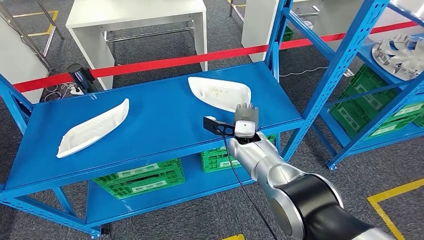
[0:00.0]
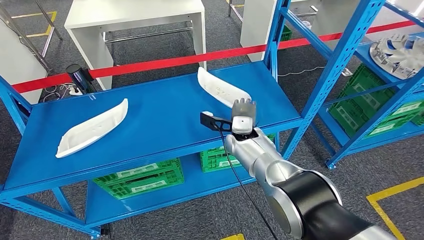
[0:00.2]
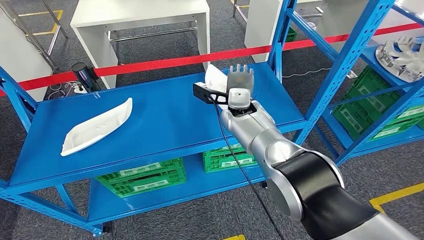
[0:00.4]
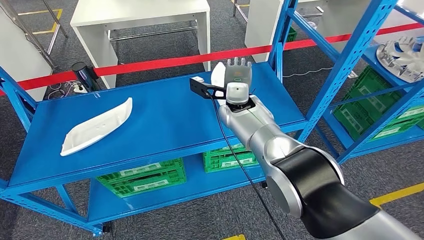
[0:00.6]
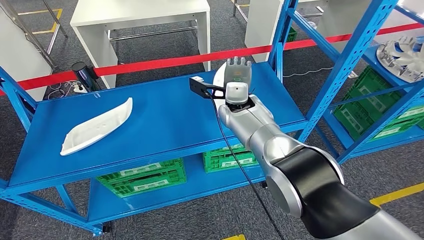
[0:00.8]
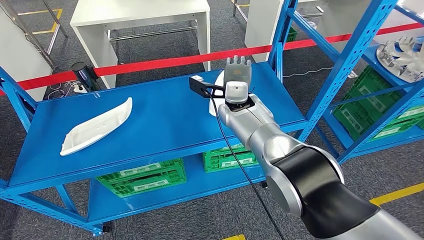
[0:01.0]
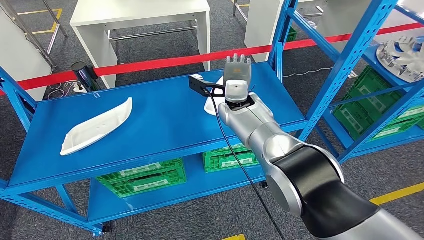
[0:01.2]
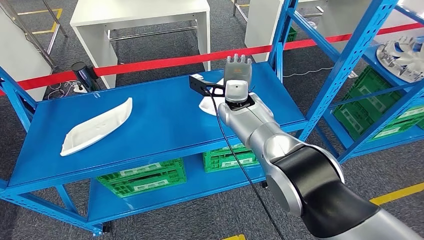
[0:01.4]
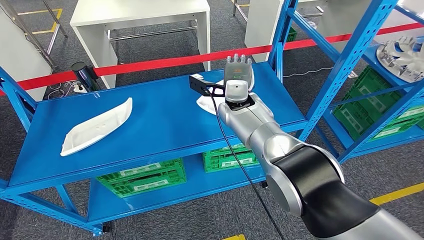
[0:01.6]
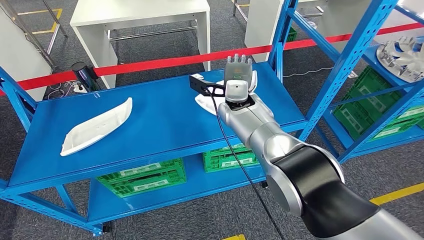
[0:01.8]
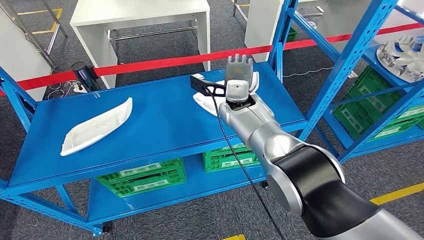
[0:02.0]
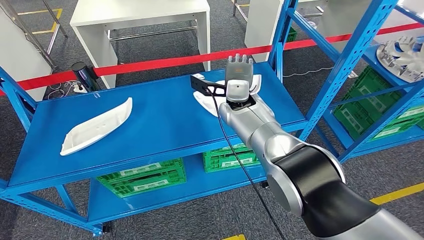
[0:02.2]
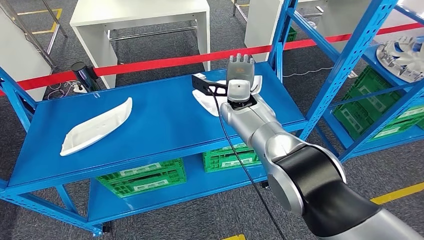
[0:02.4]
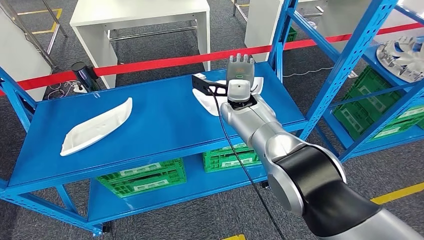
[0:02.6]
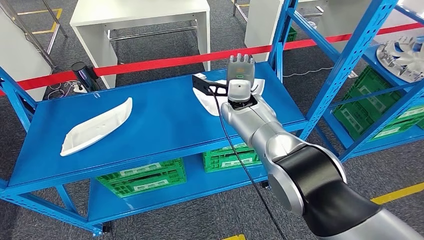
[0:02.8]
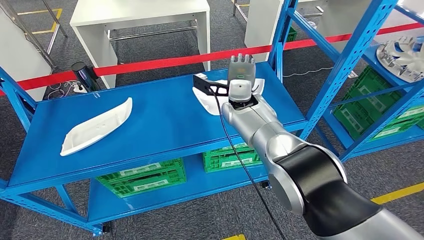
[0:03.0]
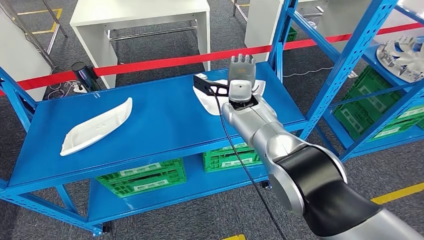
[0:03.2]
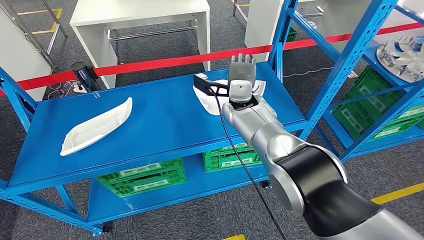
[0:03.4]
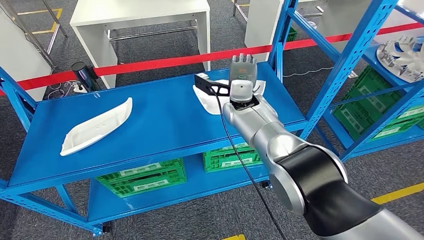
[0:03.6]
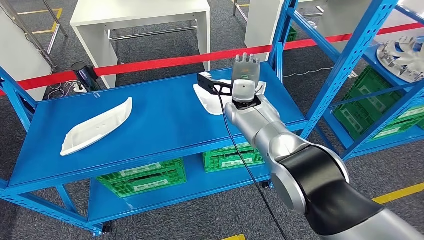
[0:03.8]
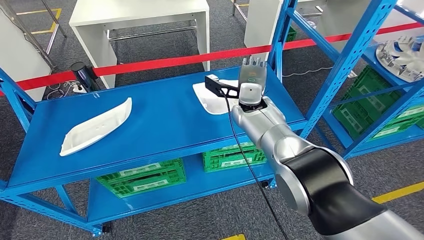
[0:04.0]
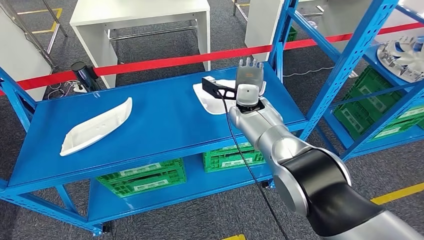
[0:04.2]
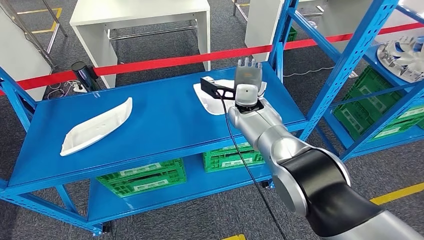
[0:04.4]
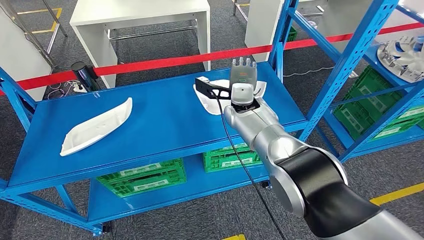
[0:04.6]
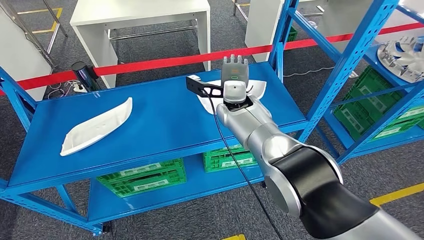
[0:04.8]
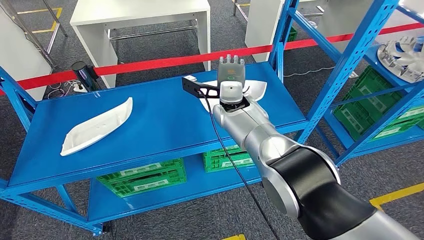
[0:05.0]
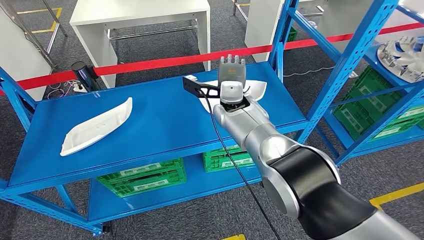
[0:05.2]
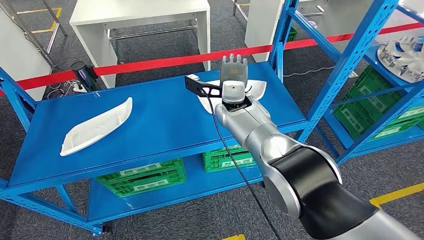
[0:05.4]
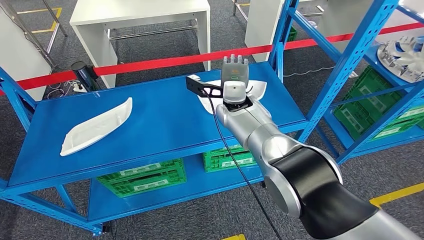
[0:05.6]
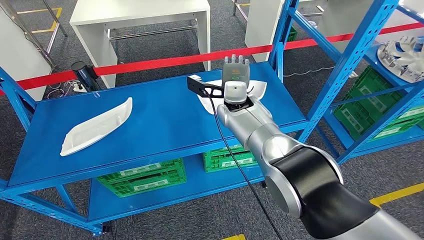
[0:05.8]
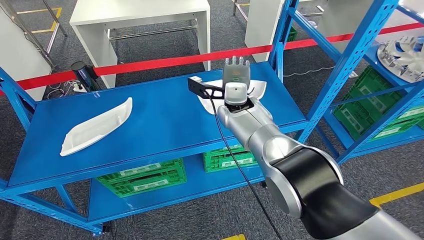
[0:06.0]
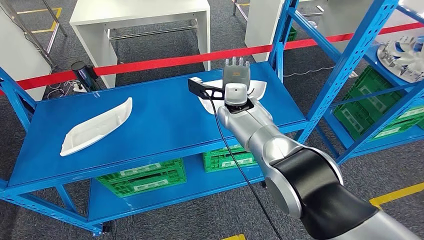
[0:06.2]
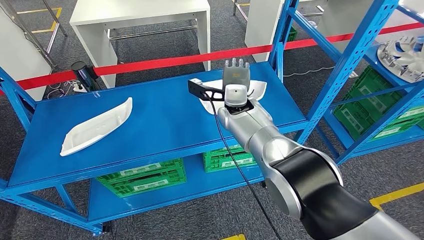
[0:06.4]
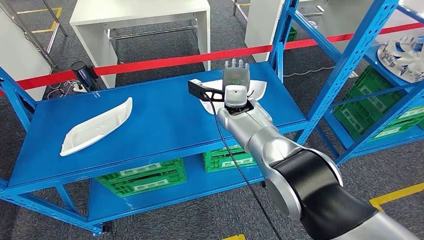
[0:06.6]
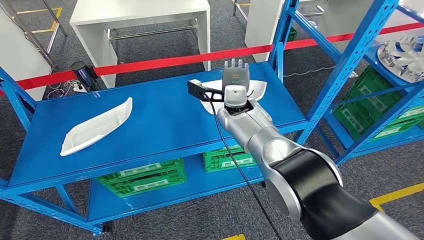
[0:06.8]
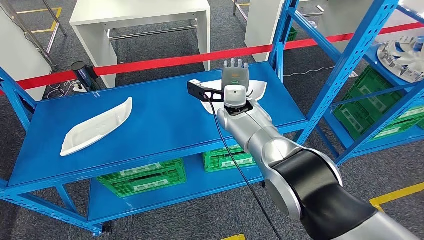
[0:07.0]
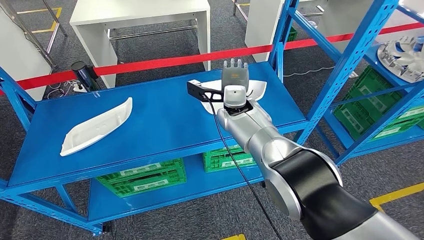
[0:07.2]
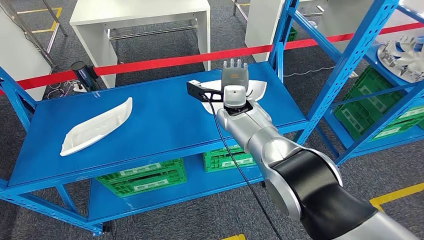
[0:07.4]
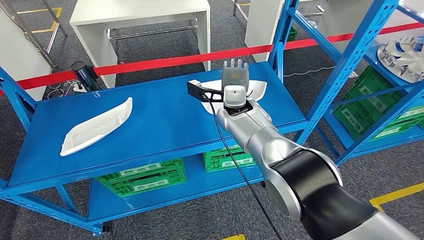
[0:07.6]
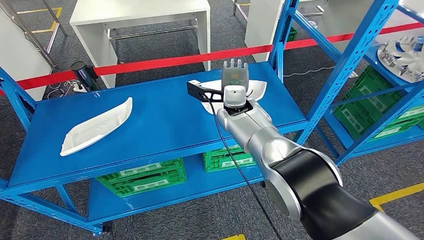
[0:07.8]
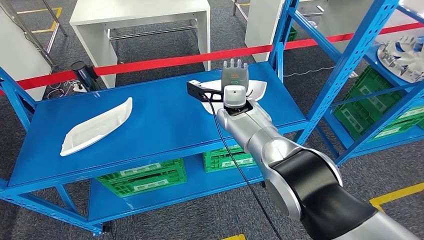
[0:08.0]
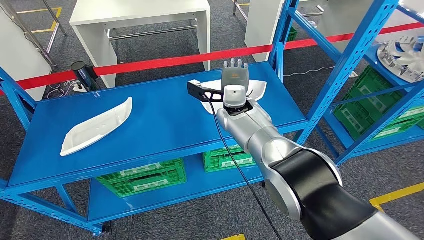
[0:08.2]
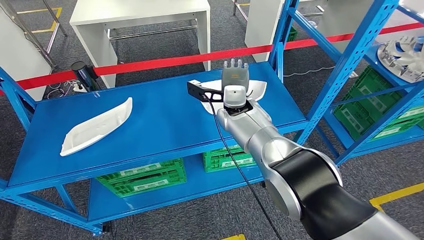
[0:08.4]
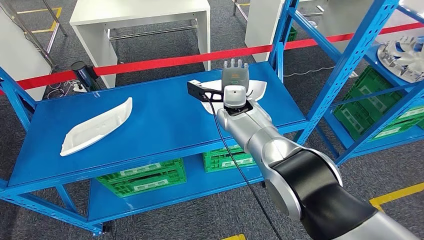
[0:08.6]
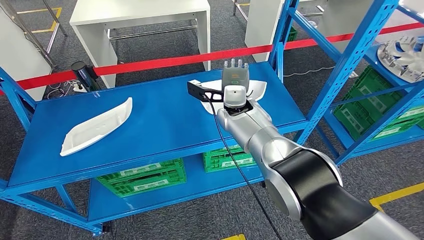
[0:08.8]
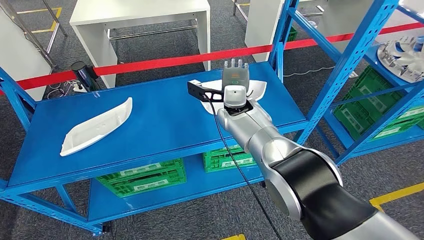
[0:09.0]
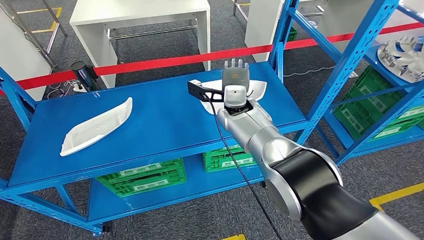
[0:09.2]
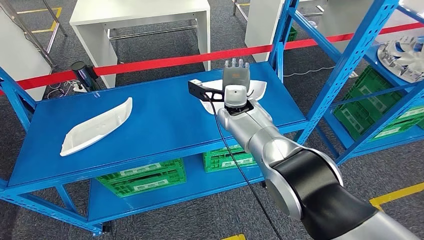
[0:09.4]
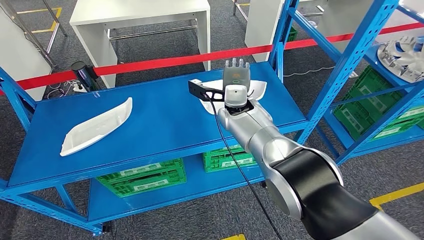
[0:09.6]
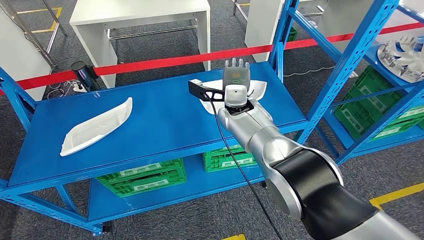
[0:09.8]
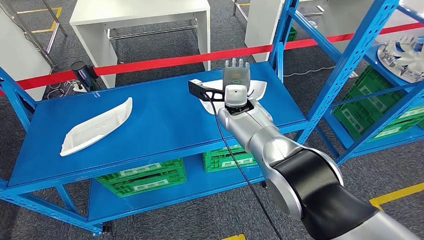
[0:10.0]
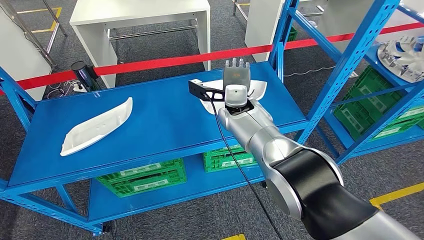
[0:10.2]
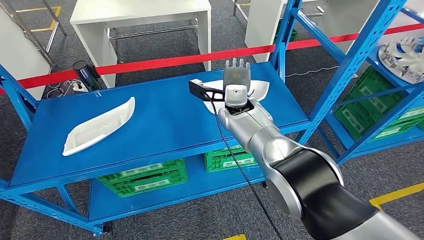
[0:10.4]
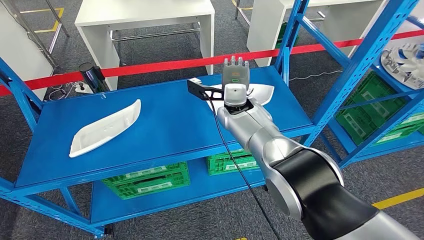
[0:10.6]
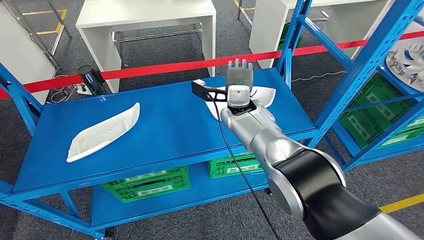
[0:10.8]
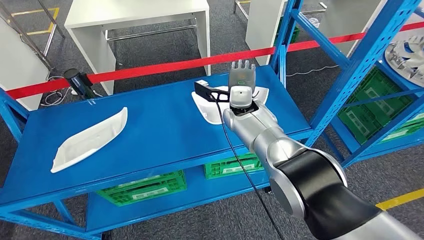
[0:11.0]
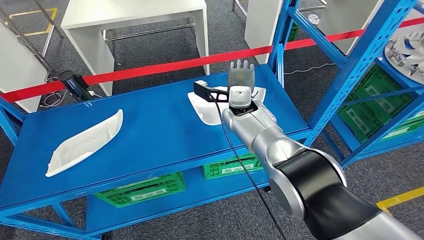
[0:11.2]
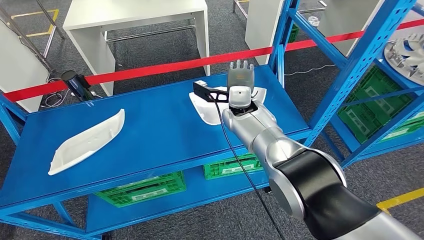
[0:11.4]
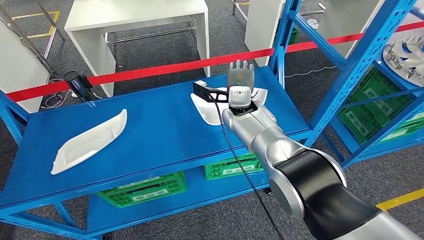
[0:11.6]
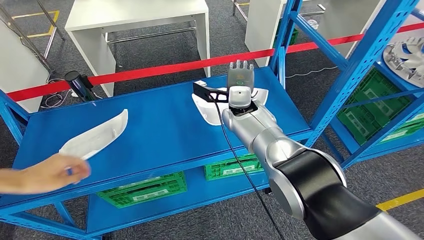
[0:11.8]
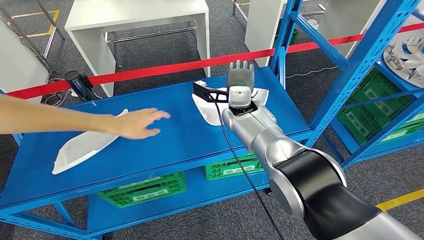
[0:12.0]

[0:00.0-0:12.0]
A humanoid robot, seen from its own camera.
0:01.6 to 0:03.0: Both hands stay put.
0:03.0 to 0:06.0: The hands stay close to where they were, moving slightly.
0:06.0 to 0:10.4: Both hands stay put.

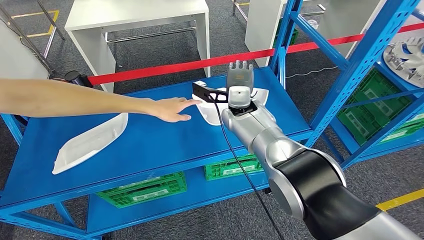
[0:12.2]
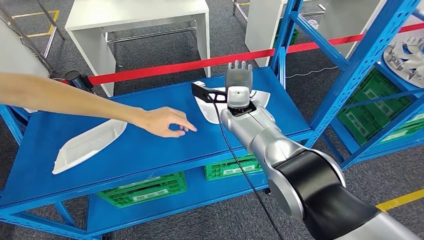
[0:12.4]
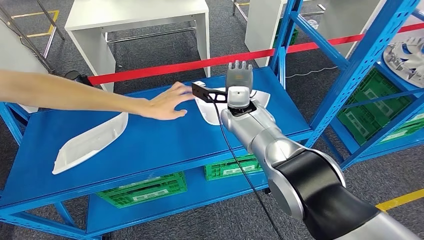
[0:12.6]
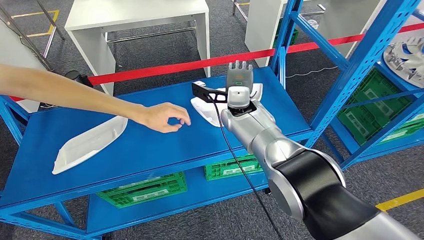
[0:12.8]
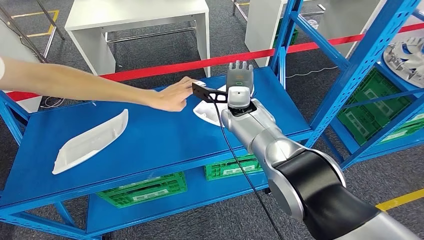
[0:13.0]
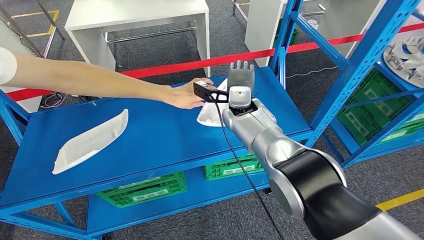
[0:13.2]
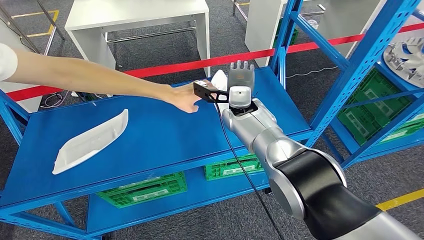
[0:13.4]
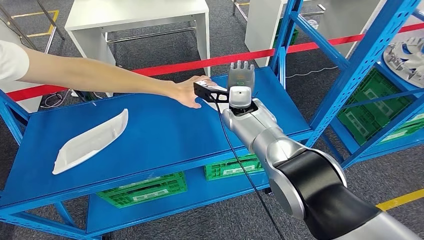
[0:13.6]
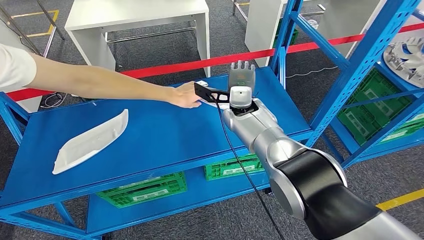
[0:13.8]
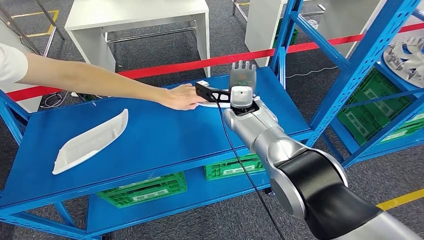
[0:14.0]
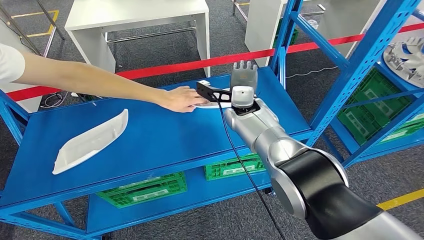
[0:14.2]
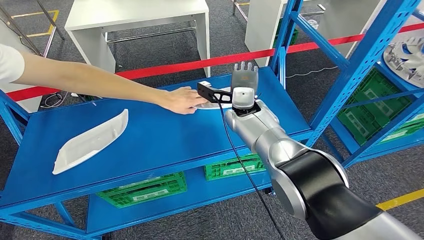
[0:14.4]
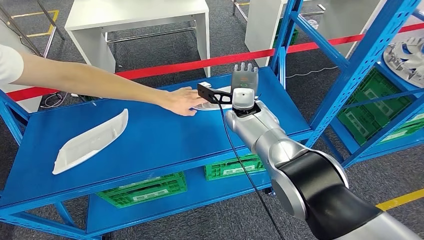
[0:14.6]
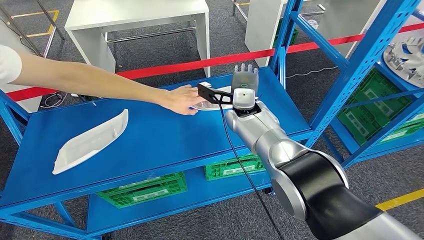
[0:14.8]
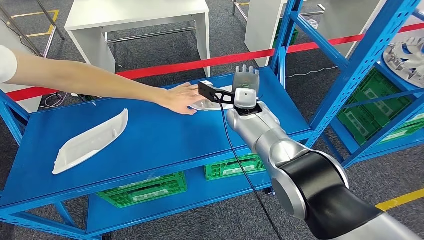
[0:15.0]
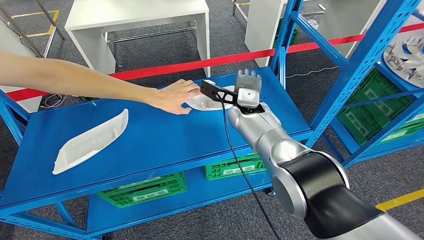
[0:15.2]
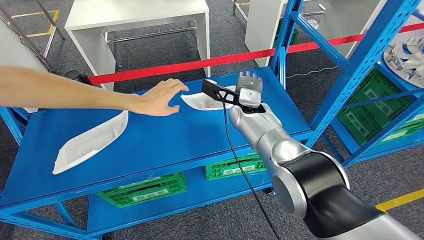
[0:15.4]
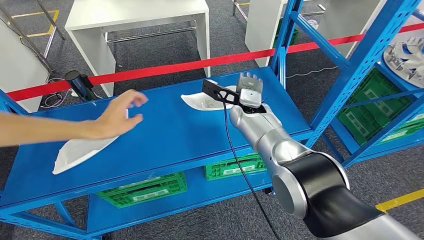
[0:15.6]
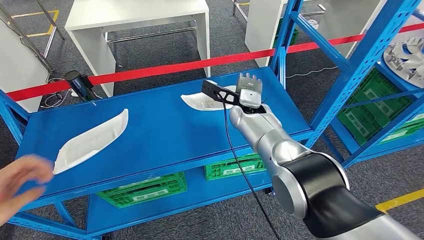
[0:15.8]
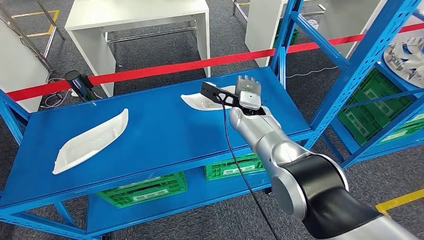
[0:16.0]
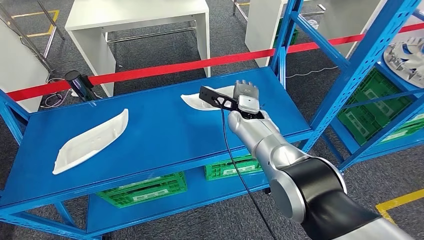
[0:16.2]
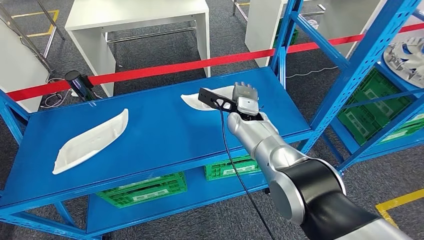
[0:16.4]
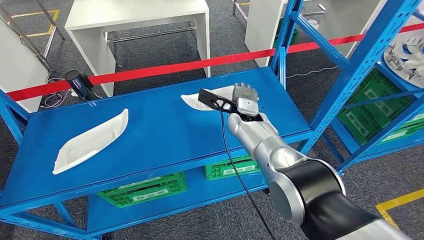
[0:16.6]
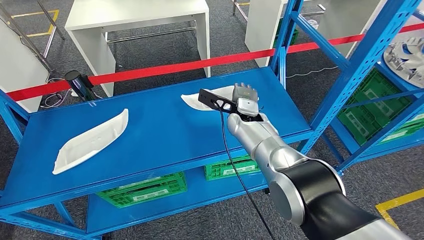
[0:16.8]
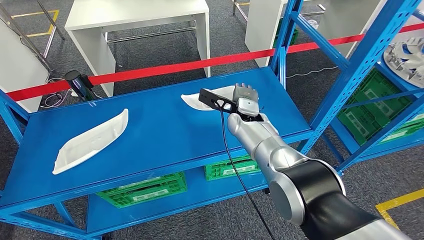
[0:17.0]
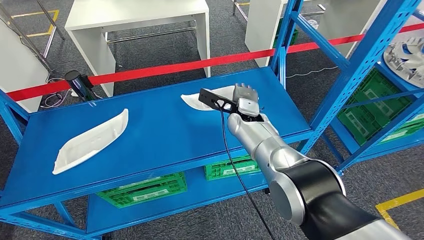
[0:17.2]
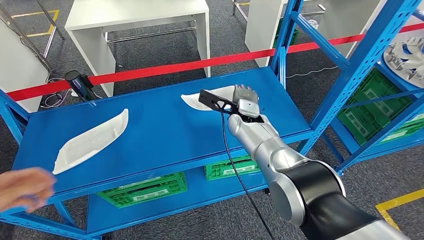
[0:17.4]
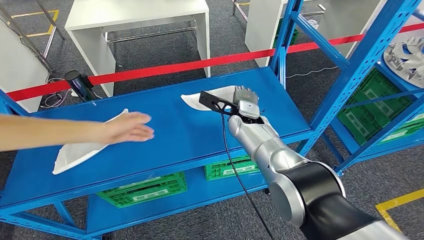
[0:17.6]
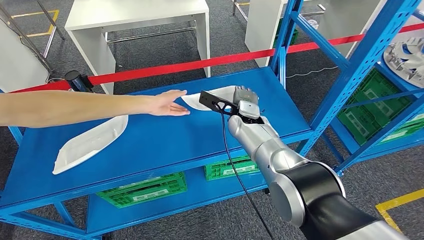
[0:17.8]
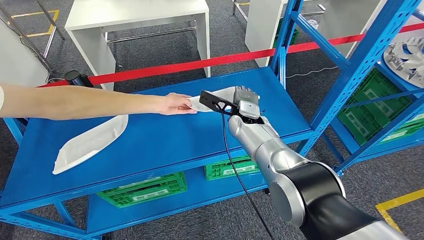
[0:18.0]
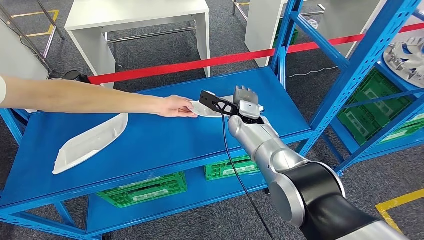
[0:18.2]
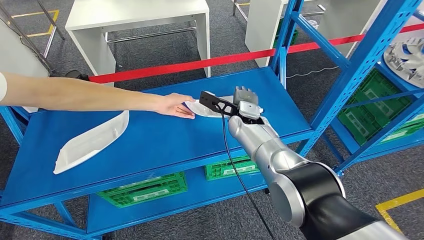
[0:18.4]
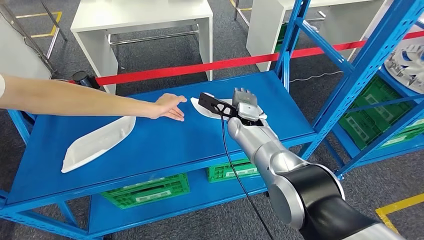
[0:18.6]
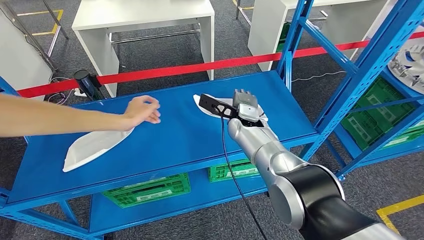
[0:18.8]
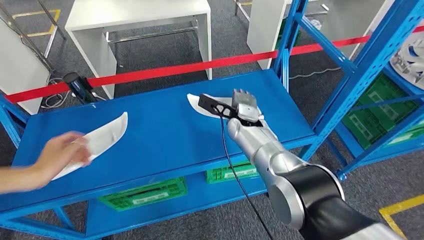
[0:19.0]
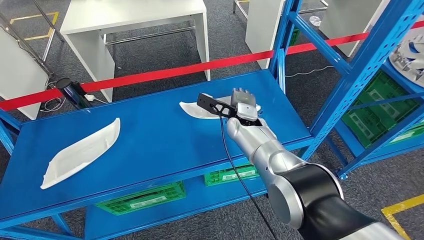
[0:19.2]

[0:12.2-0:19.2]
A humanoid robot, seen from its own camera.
0:12.2 to 0:13.6: Both hands stay put.
0:13.6 to 0:15.0: The hands move only a little.
0:15.0 to 0:16.4: The hands move only a little.
0:16.4 to 0:17.8: Both hands stay about where they are.
